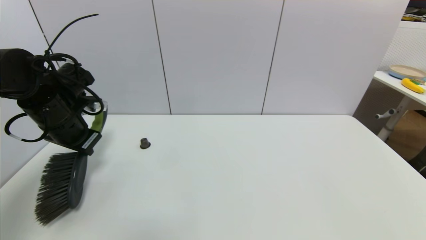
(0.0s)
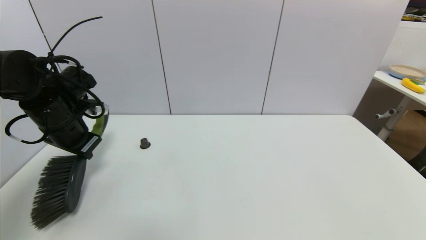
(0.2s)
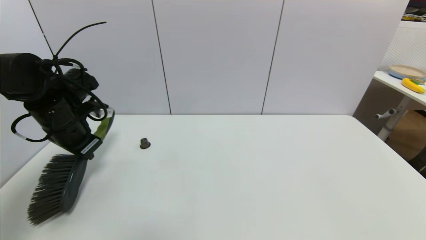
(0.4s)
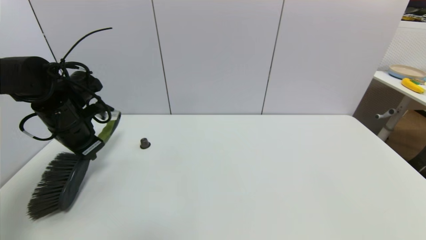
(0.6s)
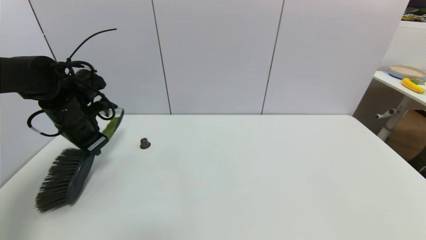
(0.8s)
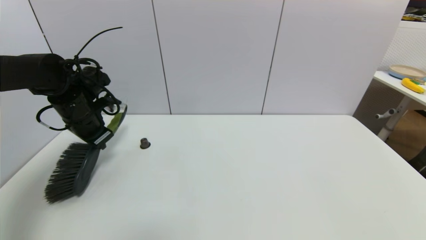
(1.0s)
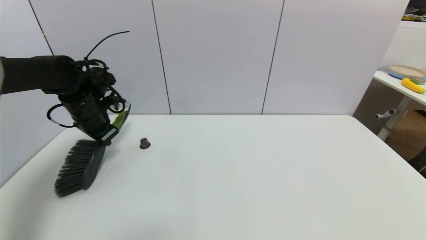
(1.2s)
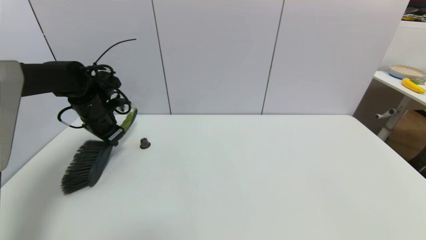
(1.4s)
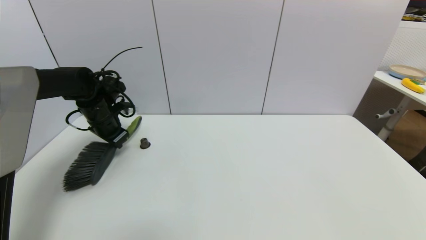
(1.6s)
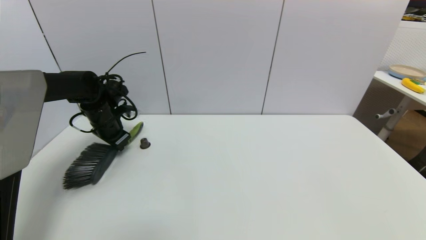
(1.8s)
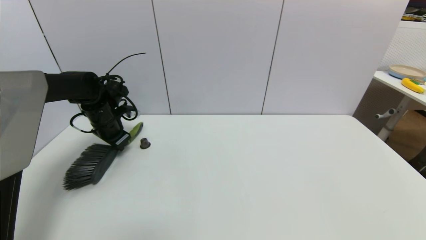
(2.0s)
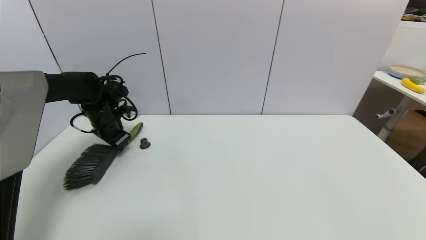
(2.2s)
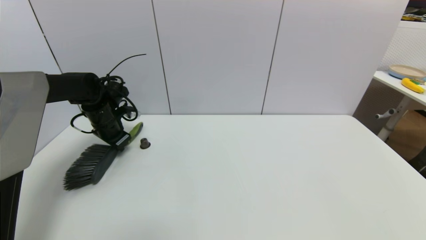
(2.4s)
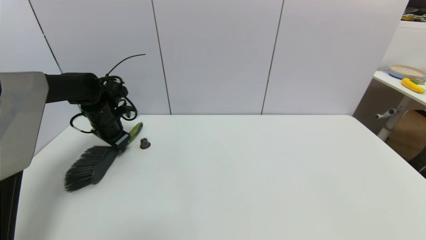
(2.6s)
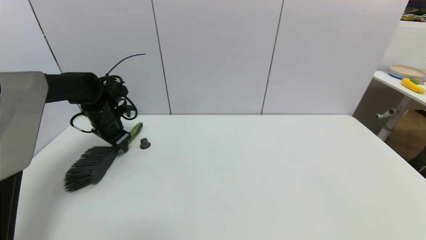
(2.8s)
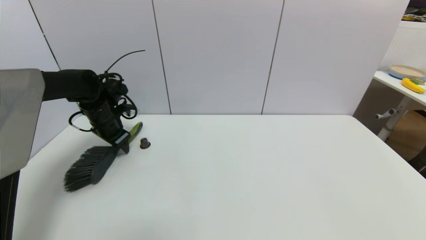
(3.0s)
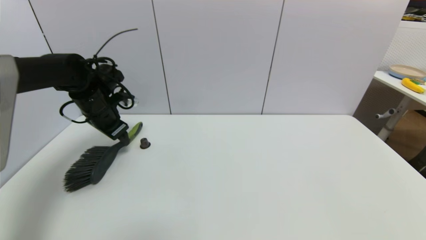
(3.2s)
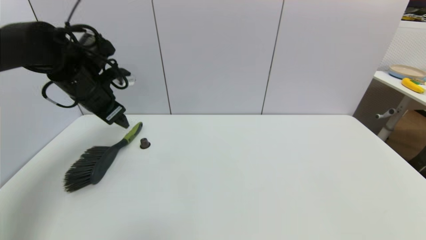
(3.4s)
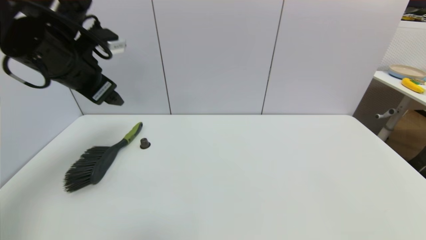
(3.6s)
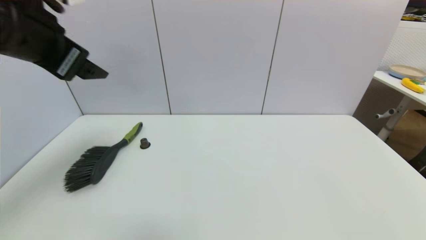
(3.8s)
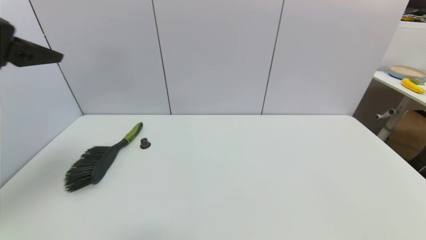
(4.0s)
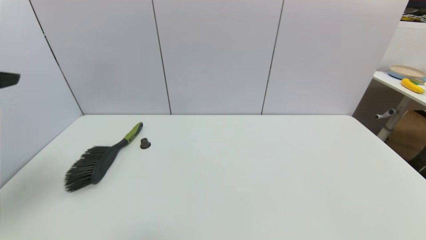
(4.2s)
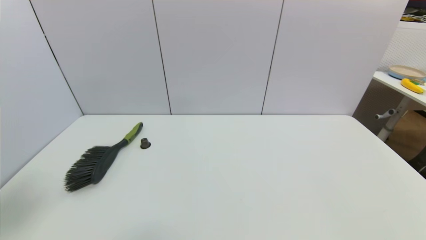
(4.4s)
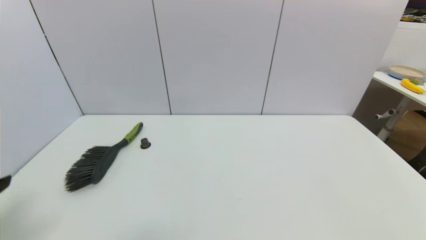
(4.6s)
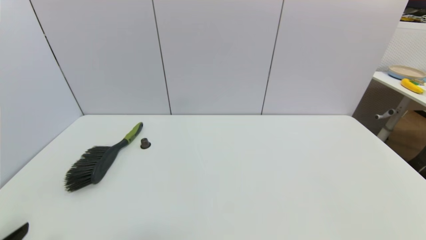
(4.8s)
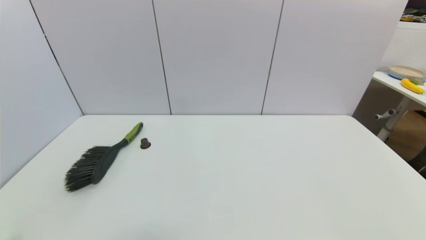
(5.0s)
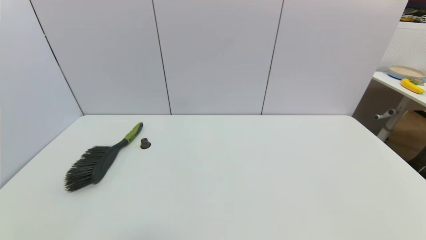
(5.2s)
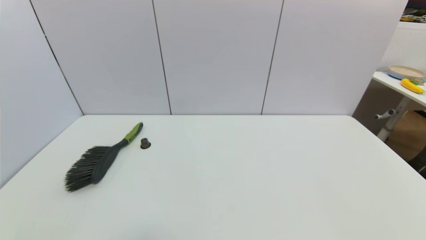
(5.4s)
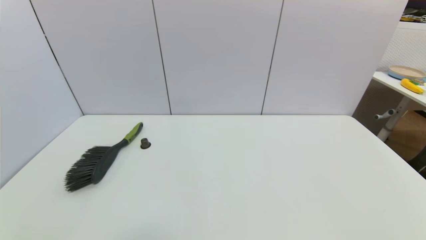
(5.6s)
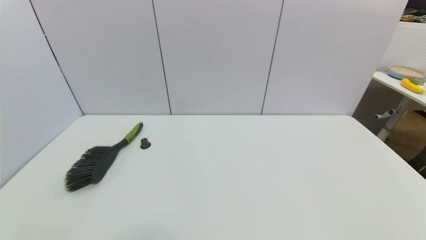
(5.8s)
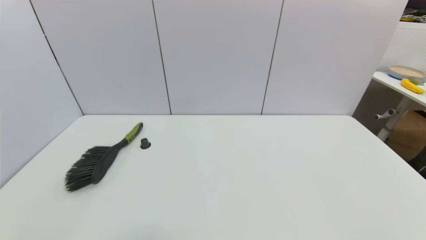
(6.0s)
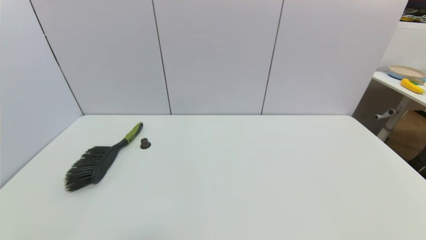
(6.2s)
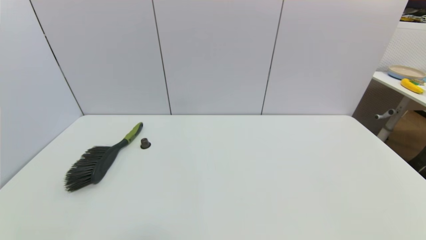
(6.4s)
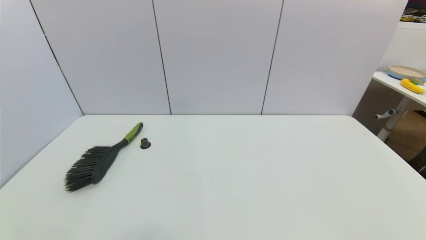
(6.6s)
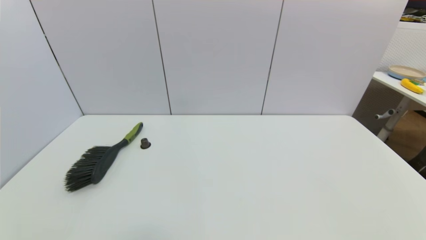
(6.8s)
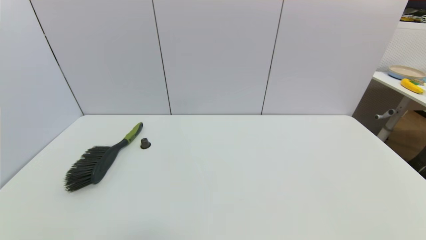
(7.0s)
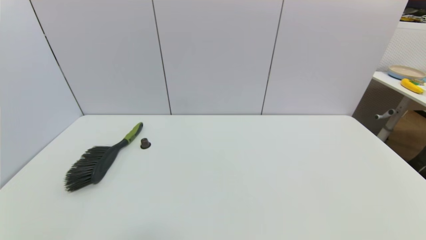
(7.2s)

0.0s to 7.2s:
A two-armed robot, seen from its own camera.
Task of the whole recording: put the brush in the designated position.
Step, 0.0s to 2.6s: Place the brush on the table with left gripper.
0.0s to 1.4s: The left gripper moves forward, about 10 cm.
1.4s to 2.8s: The left gripper opens.
2.8s to 4.4s: The left gripper travels backward and upward by roughly 40 cm, and opens.
4.4s to 5.8s: The left gripper moves downward, about 25 cm.
5.8s to 7.2s: The two grippers keep their place.
